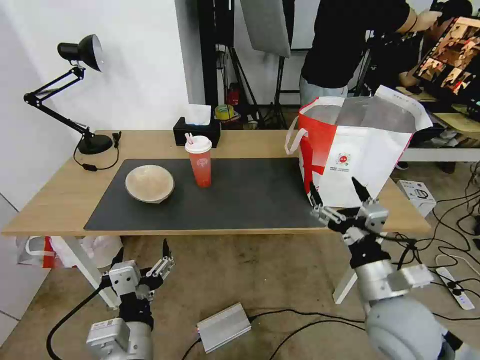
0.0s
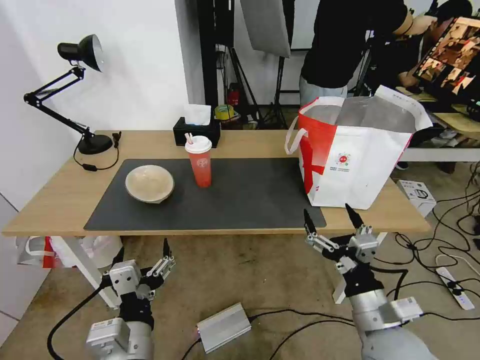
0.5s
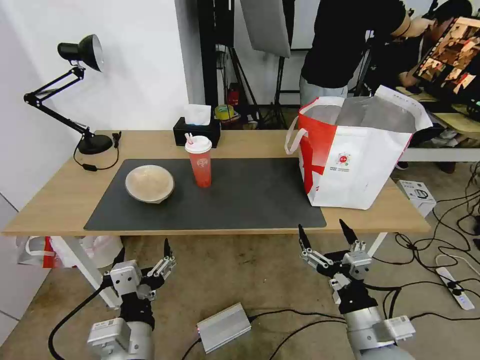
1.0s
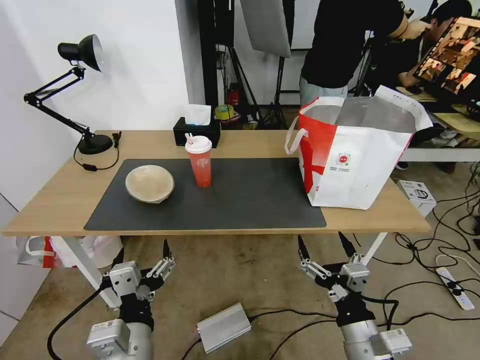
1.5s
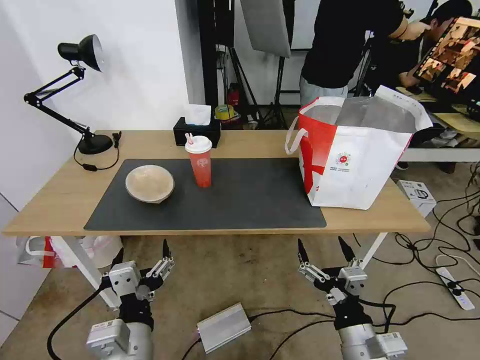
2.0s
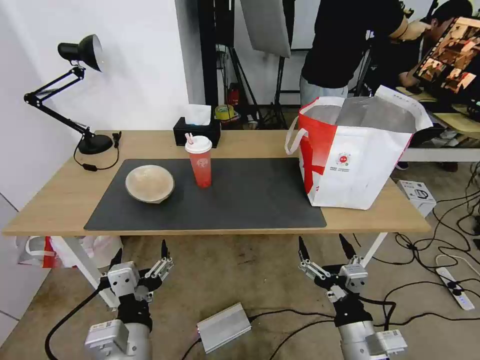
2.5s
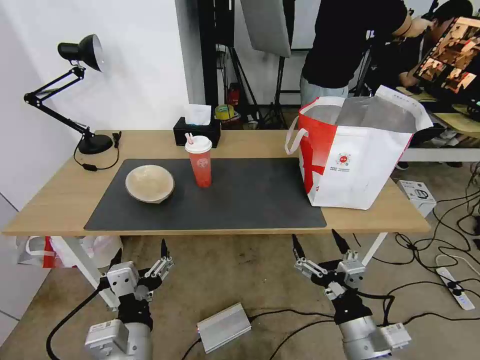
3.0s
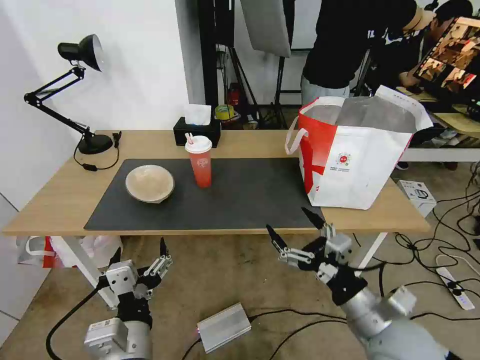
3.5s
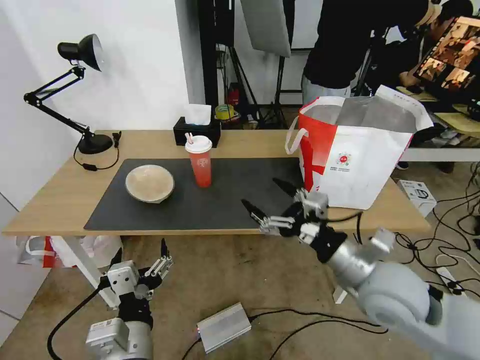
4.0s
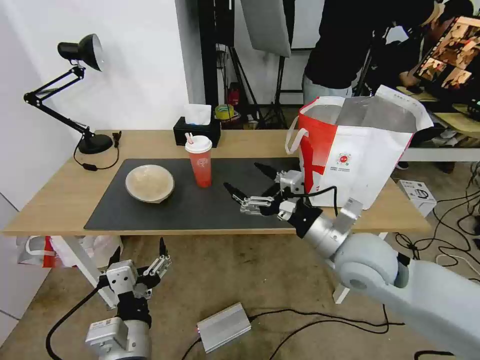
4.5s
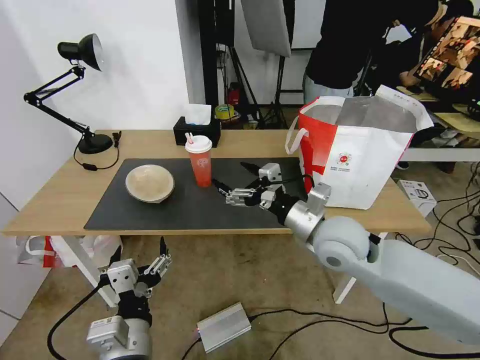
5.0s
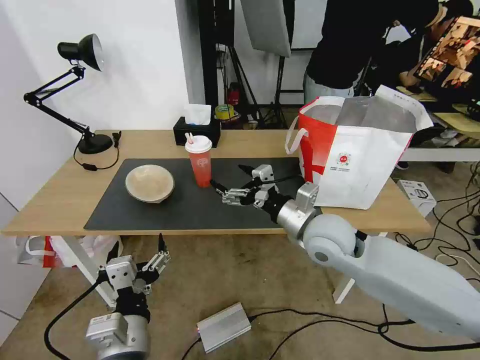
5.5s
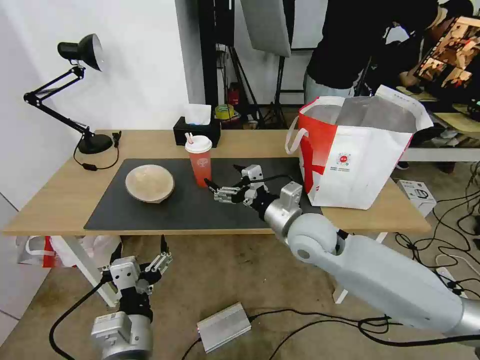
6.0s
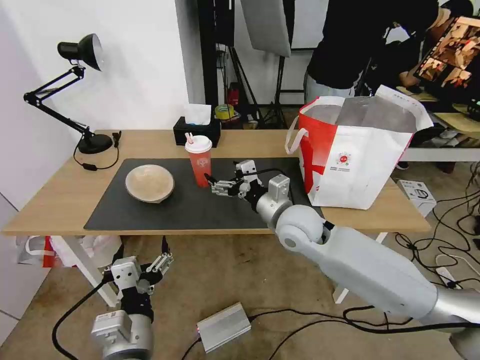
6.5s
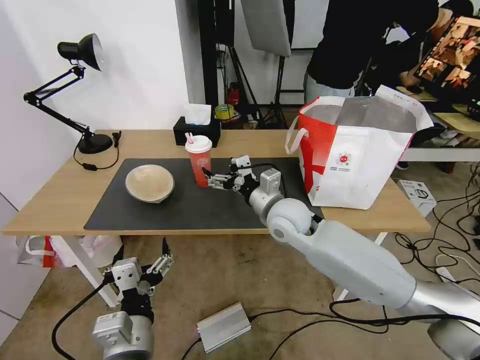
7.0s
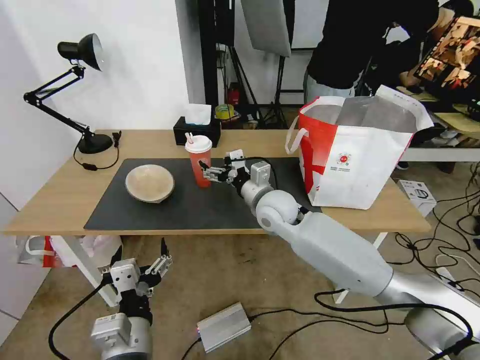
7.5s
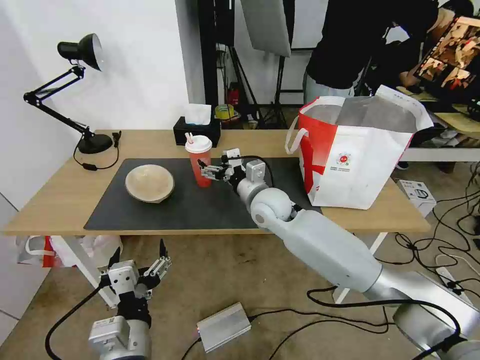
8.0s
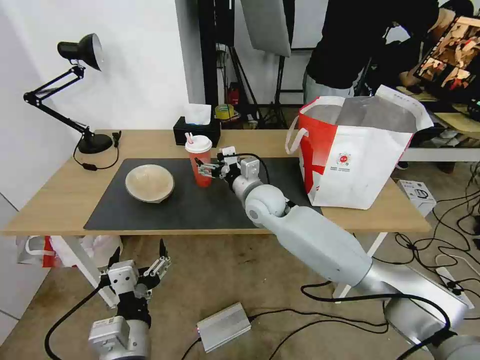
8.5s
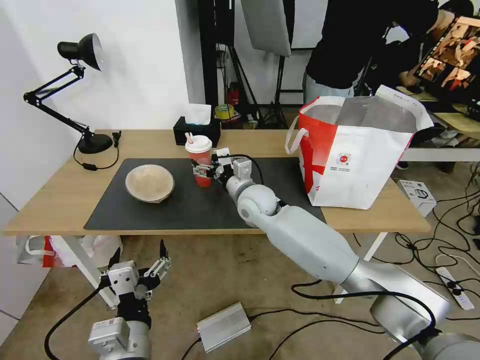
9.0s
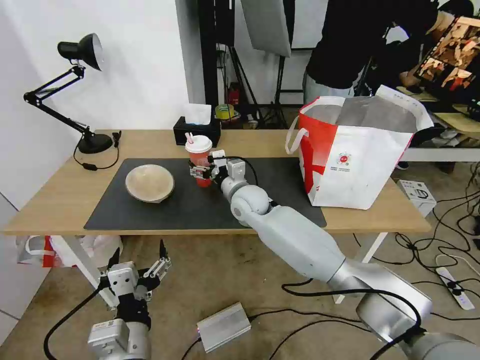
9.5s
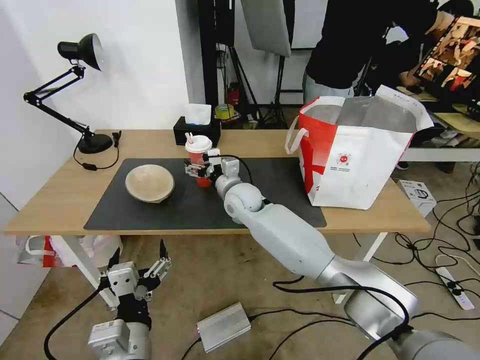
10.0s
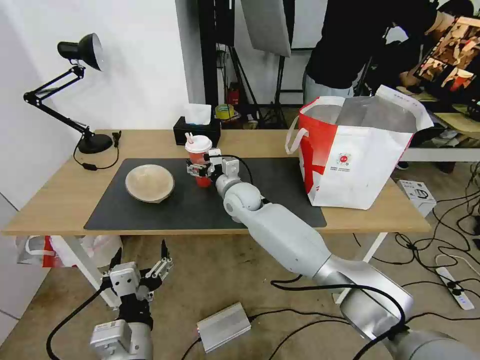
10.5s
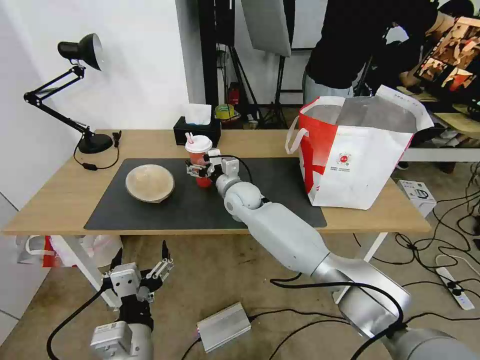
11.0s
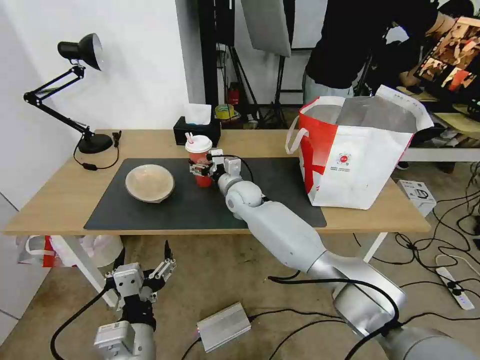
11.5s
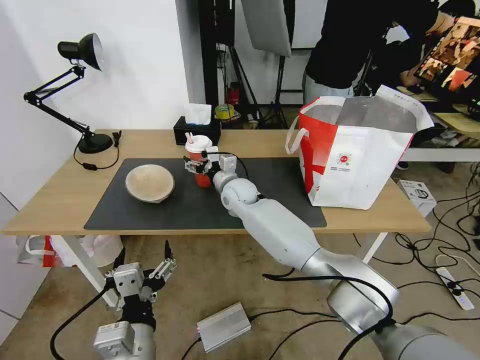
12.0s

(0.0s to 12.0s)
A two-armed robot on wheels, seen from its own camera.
Task of the whole recording: Pick up the trash from the table and place it into the takeout bag.
0.0s - 2.0s: The right gripper travels backward and downward by roughly 10 cm.
2.0s - 4.0s: The right gripper heads forward and upward, covering approximately 15 cm.
4.0s - 6.0s: The right gripper heads forward and to the left, covering about 15 cm.
6.0s - 8.0s: The right gripper travels forward and to the left by some 10 cm.
8.0s - 10.0s: The right gripper heads to the left, covering about 5 cm.
10.0s - 12.0s: There are only small adjustments of the grippers.

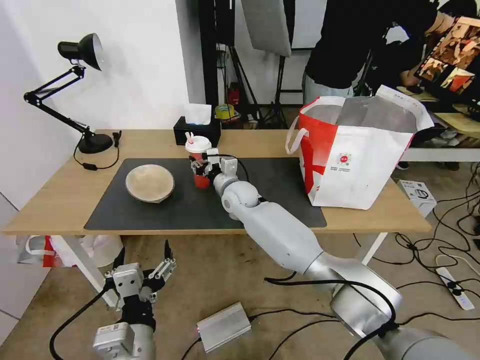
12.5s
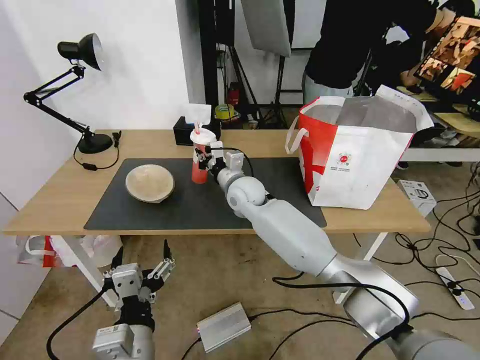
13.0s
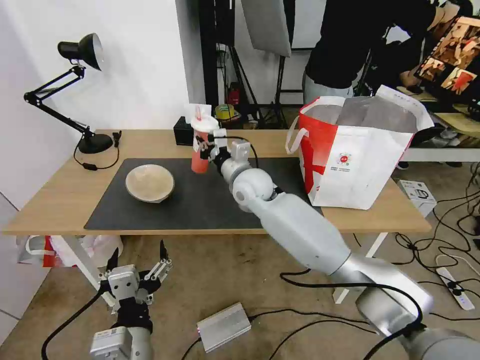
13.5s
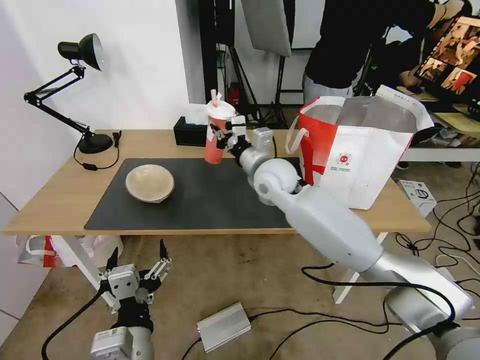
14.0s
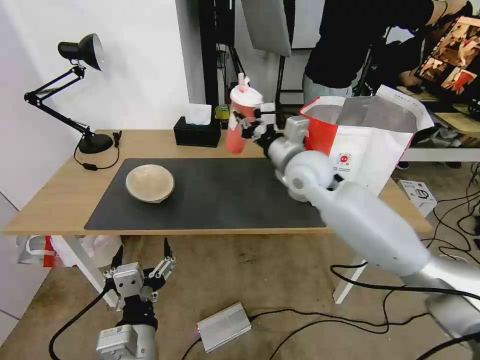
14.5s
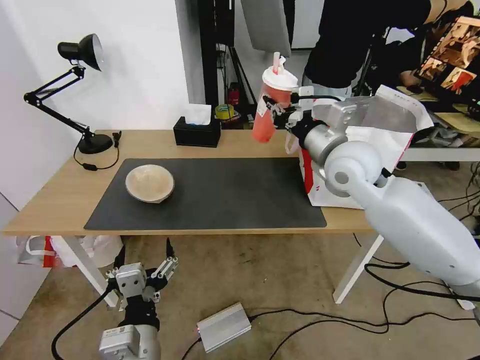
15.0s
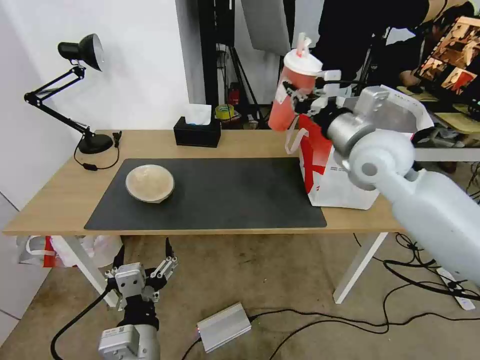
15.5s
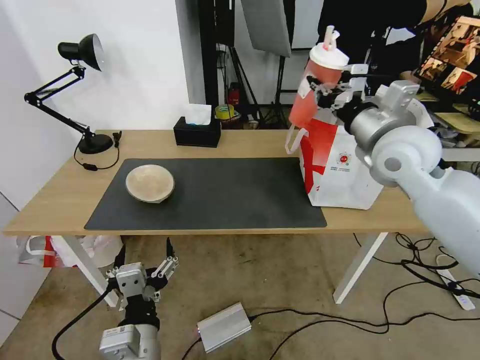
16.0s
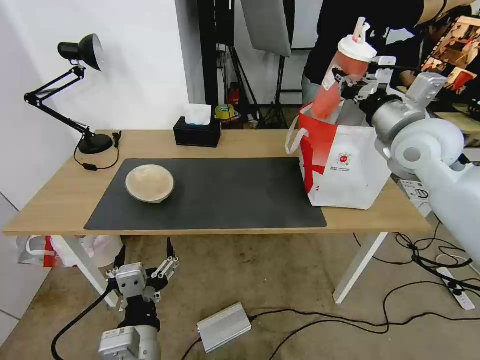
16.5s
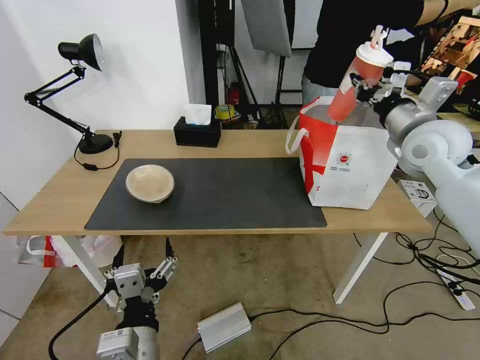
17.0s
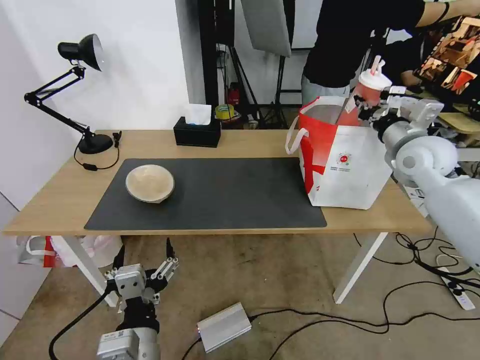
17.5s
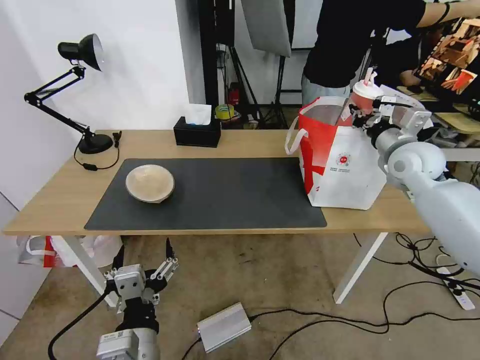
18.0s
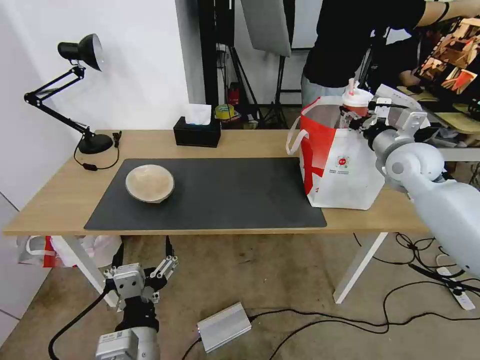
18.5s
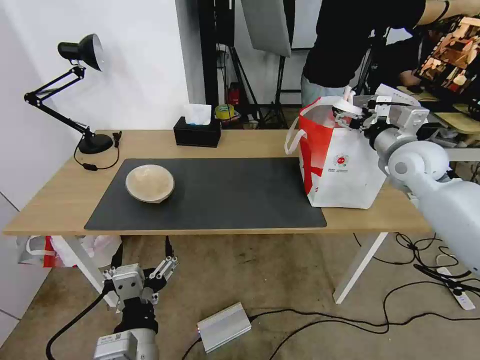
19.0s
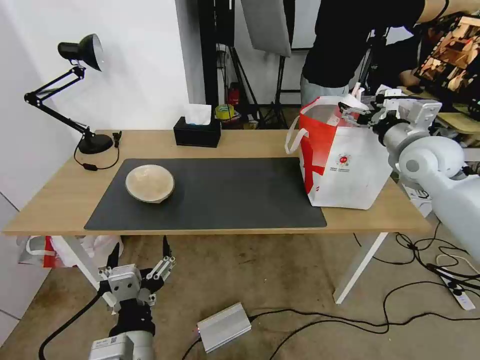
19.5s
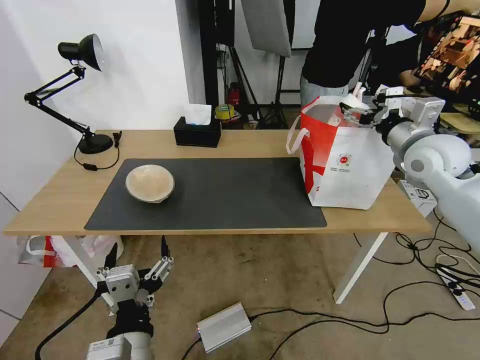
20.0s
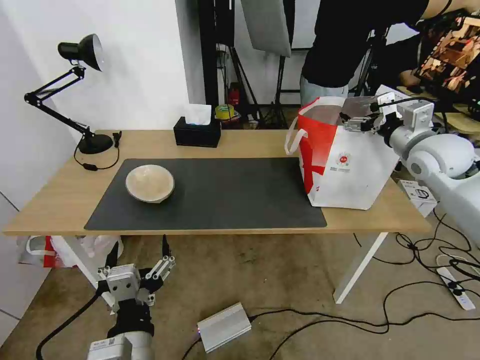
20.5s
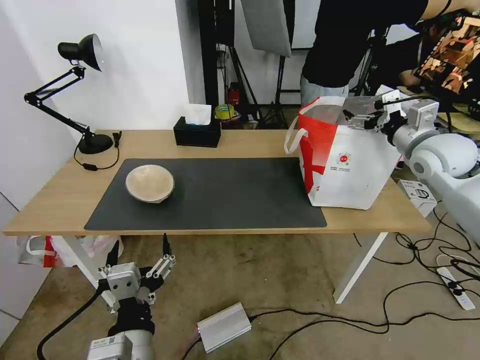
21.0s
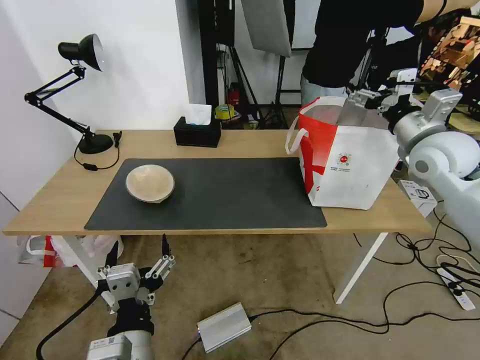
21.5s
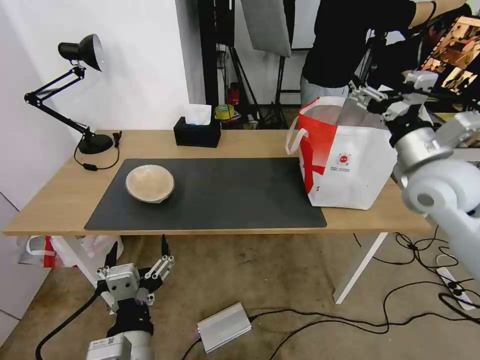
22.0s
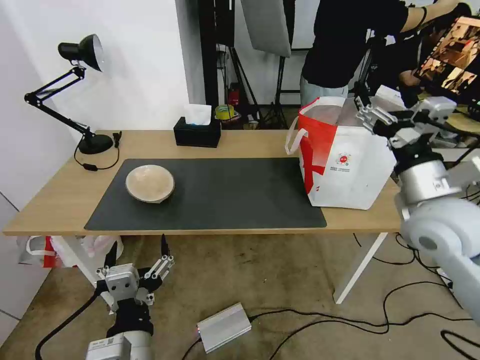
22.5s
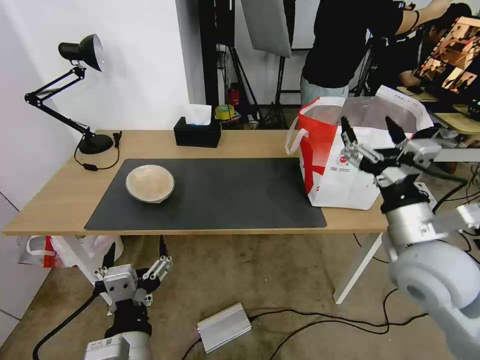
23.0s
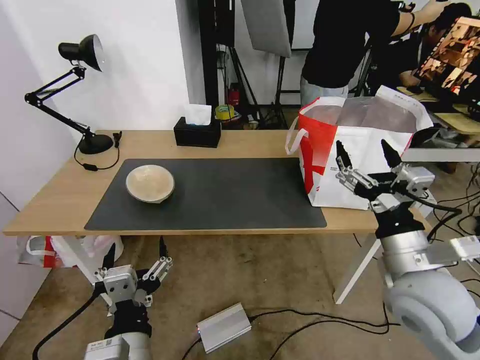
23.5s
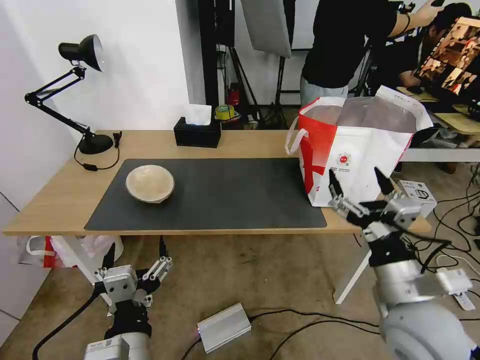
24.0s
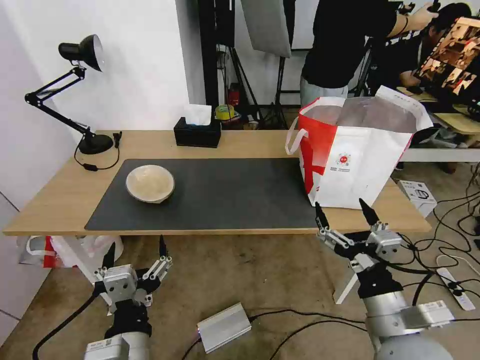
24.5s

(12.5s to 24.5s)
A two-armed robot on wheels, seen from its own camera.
Task of the whole recording: Pick up the trash from the table and place it into the takeout bag.
12.5s - 14.5s: The right gripper is displaced upward, to the right and backward by some 20 cm.
14.5s - 16.5s: The right gripper is displaced to the right and upward by some 20 cm.
16.5s - 18.5s: The right gripper goes about 10 cm downward, and opens up.
18.5s - 20.5s: The right gripper opens.
20.5s - 22.5s: The right gripper travels backward and to the left by some 15 cm.
22.5s - 24.5s: The right gripper moves backward, downward and to the left, some 25 cm.

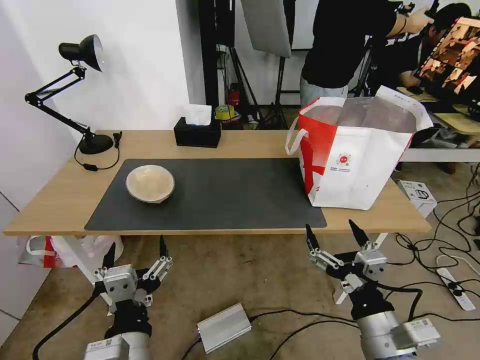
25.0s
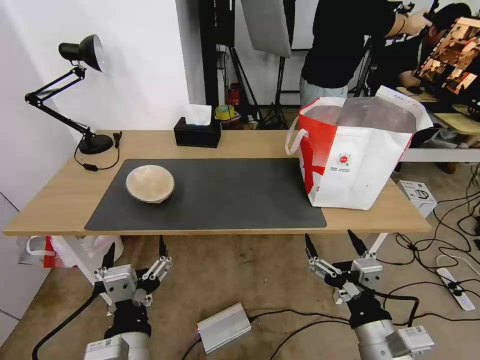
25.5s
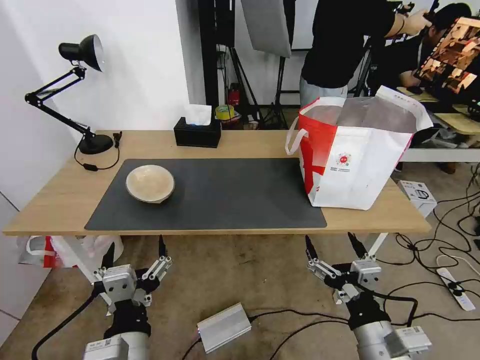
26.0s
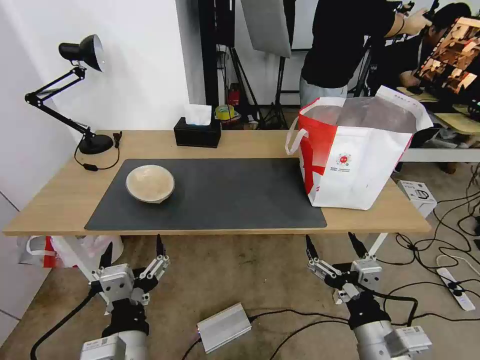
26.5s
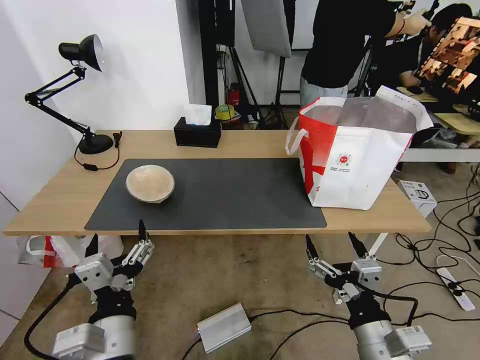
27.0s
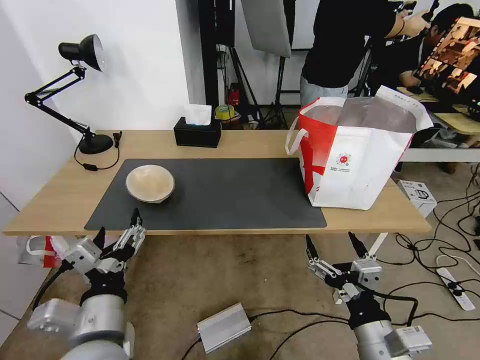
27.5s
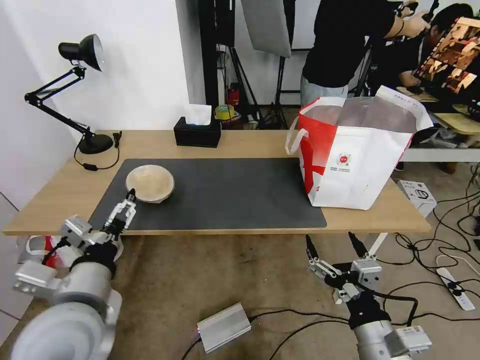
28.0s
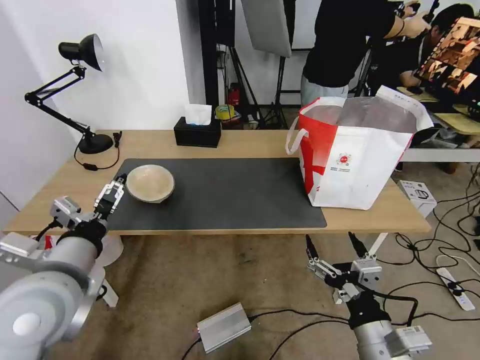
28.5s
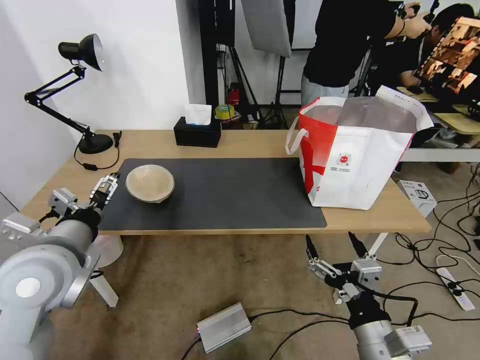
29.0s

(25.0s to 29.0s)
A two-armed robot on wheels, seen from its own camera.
Task of the whole recording: Pick up the trash from the table and place it into the takeout bag.
25.0s - 27.0s: The grippers stay close to where they were, moving slightly.
27.0s - 29.0s: The left gripper is displaced forward, to the left and upward by roughly 20 cm.
